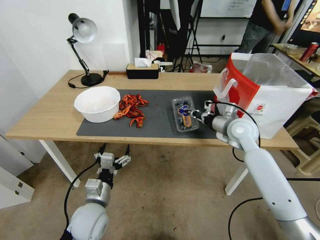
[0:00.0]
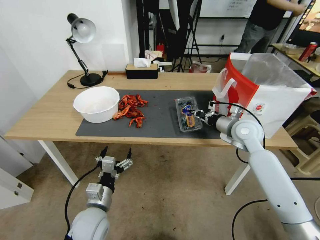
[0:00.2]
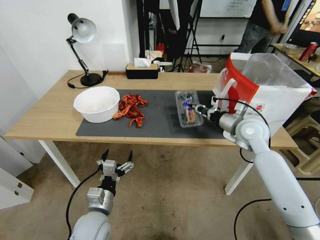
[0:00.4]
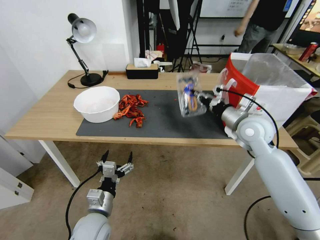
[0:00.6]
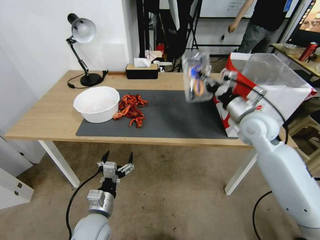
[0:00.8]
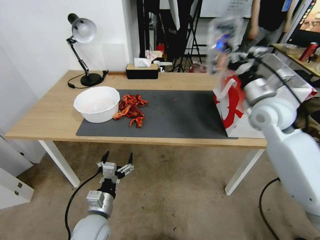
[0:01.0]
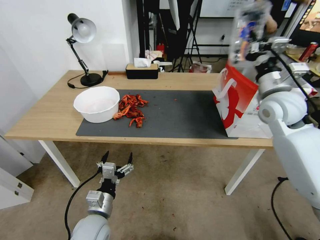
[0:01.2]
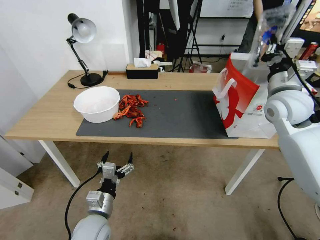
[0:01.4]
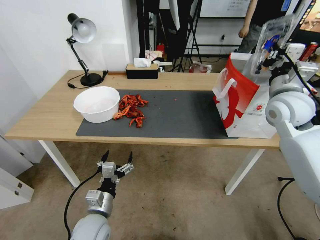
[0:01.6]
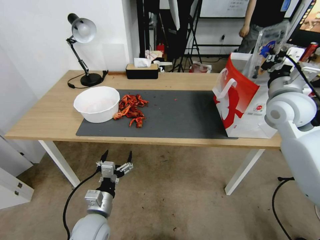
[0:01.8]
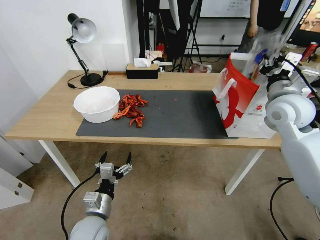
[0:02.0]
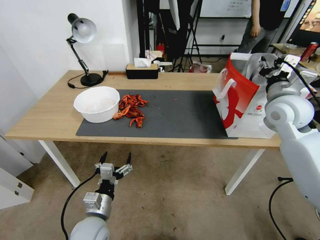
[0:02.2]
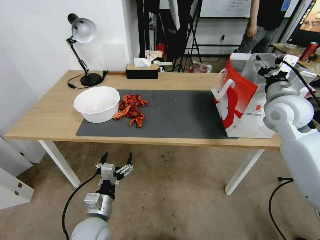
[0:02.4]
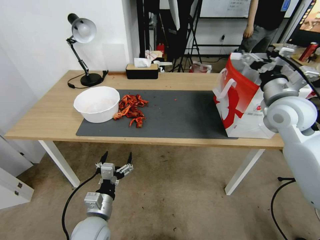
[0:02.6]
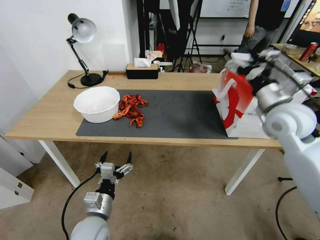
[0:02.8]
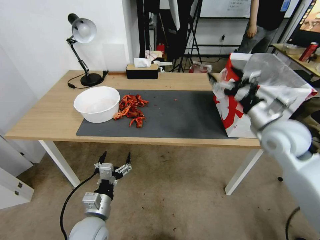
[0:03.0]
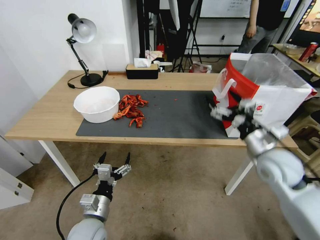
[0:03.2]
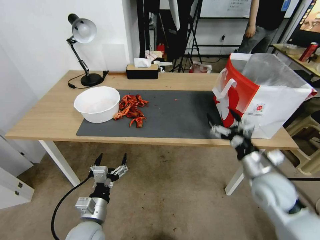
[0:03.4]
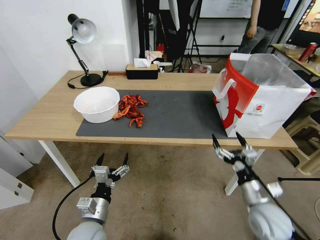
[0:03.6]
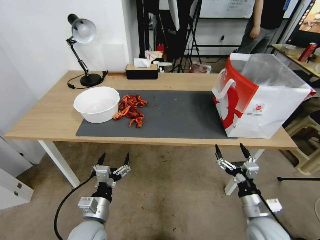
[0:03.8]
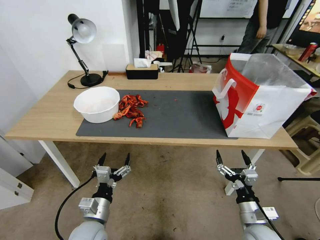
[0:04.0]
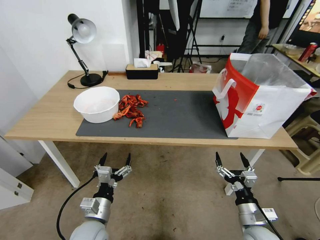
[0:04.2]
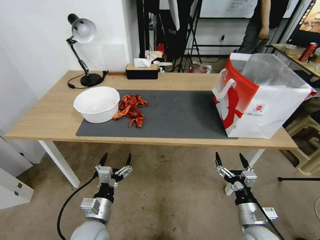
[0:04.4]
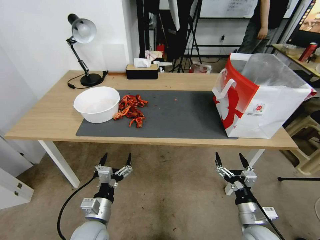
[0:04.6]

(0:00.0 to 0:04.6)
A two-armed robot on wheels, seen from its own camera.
Task of the whole recording: Close the takeout container lid, then place the container into the takeout bag.
0:00.0 - 0:01.6: The right gripper moves upward and to the right, approximately 15 cm.
0:01.6 - 0:03.0: The right gripper heads backward, covering some 5 cm, and opens up.
0:03.0 - 0:04.6: The right gripper goes about 35 cm downward and backward.

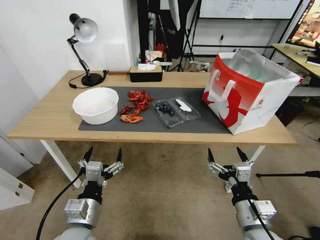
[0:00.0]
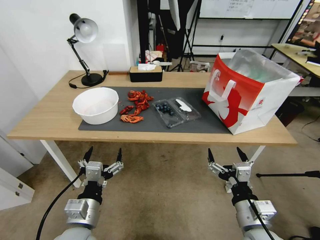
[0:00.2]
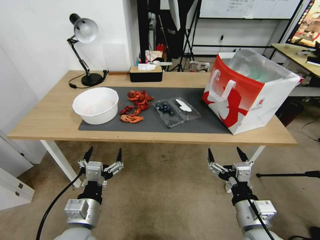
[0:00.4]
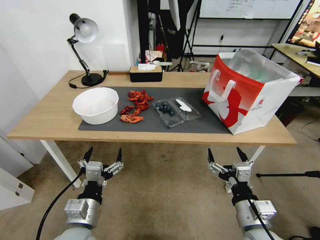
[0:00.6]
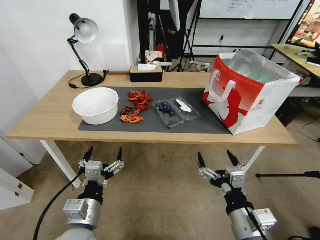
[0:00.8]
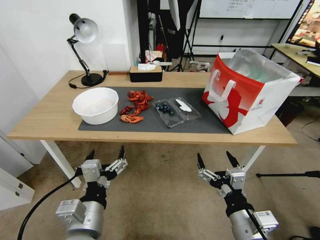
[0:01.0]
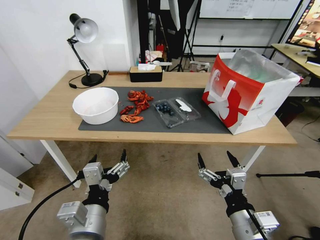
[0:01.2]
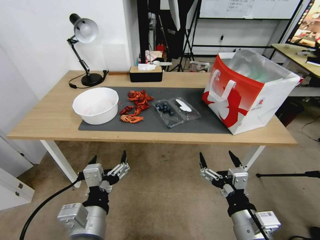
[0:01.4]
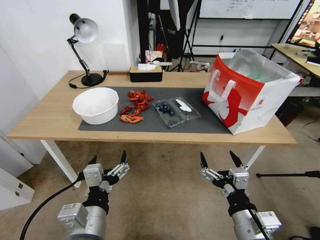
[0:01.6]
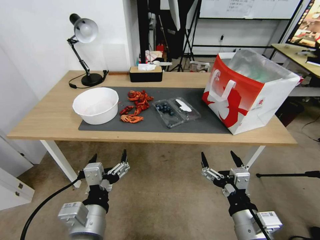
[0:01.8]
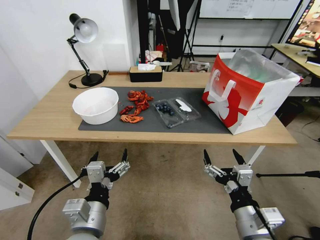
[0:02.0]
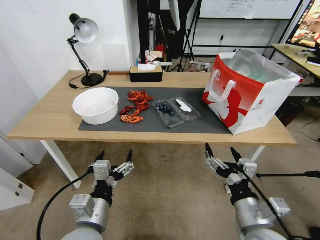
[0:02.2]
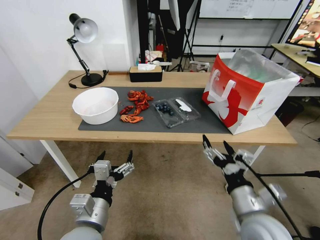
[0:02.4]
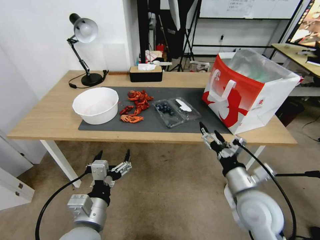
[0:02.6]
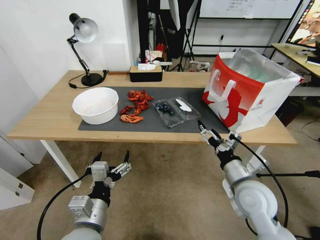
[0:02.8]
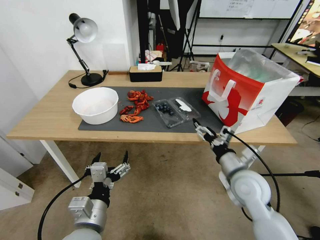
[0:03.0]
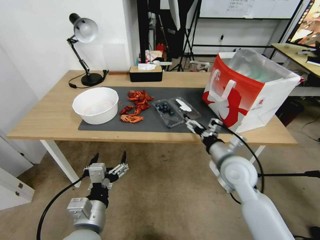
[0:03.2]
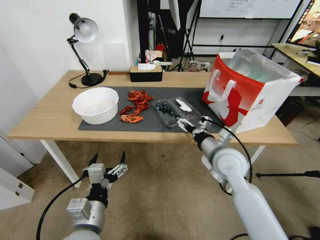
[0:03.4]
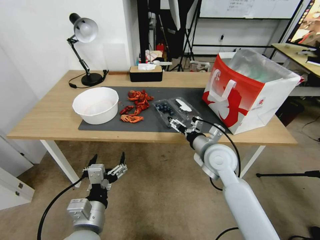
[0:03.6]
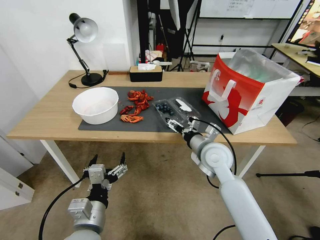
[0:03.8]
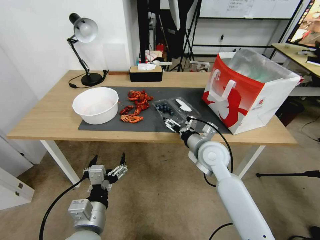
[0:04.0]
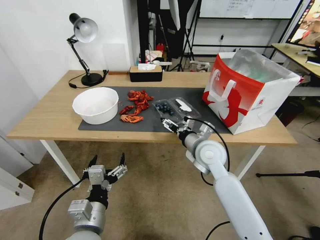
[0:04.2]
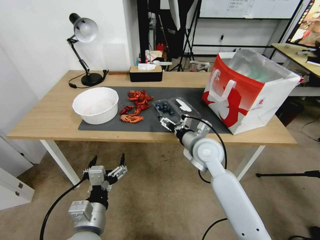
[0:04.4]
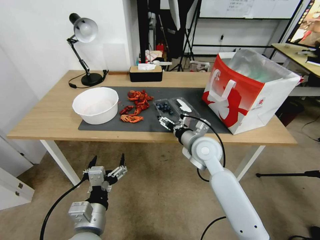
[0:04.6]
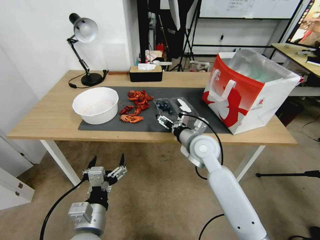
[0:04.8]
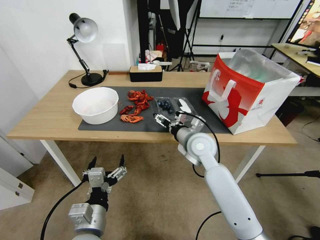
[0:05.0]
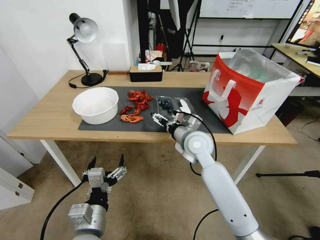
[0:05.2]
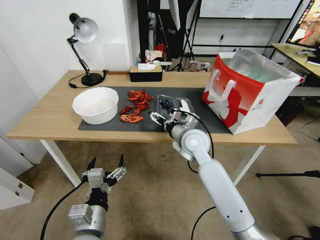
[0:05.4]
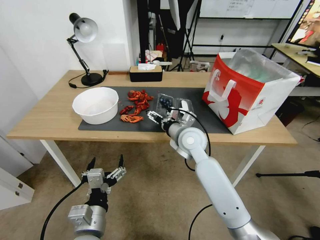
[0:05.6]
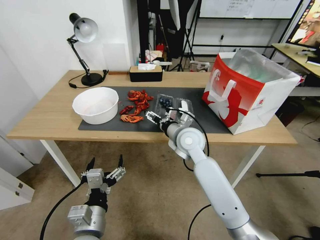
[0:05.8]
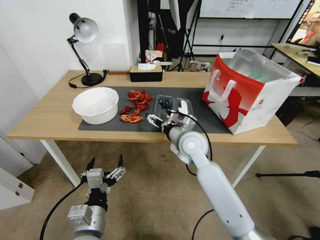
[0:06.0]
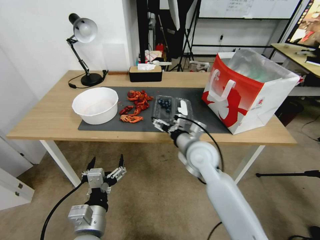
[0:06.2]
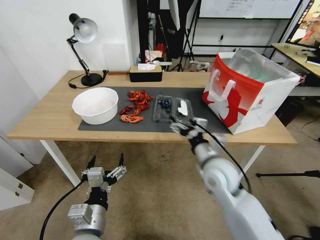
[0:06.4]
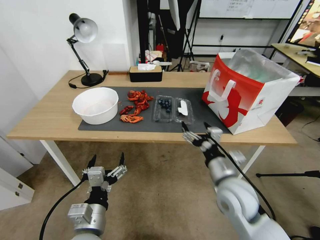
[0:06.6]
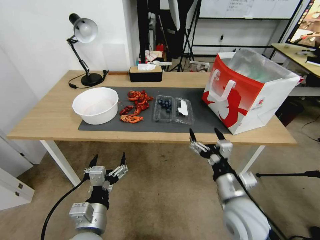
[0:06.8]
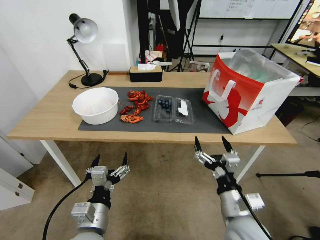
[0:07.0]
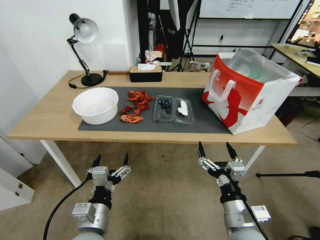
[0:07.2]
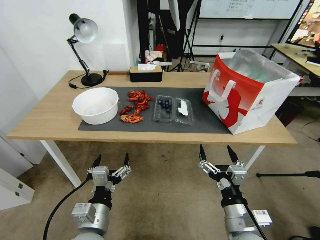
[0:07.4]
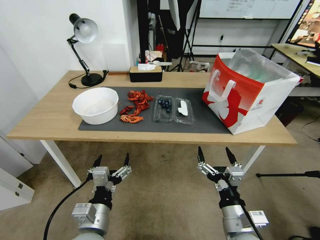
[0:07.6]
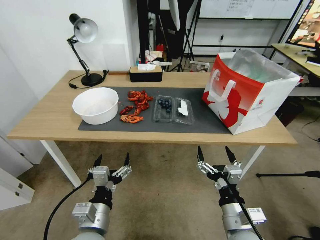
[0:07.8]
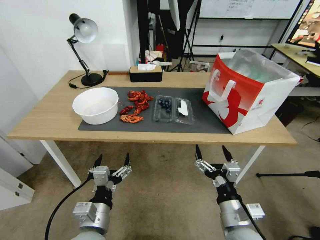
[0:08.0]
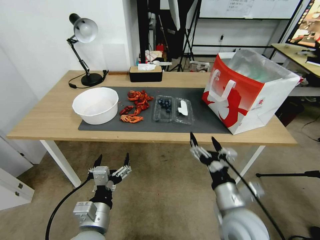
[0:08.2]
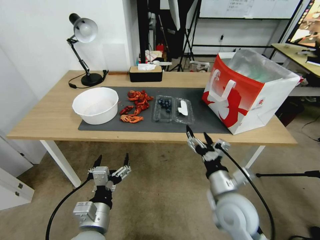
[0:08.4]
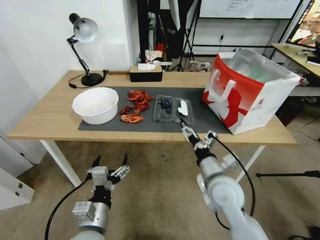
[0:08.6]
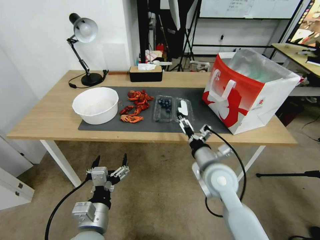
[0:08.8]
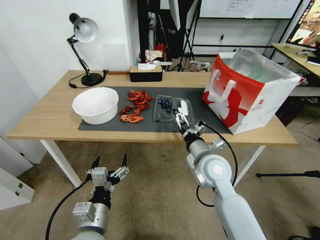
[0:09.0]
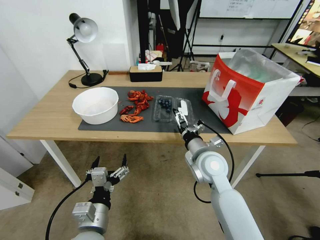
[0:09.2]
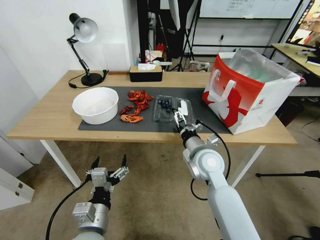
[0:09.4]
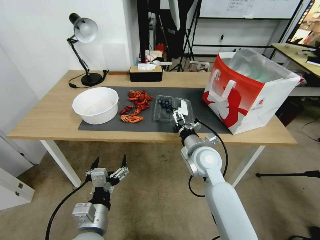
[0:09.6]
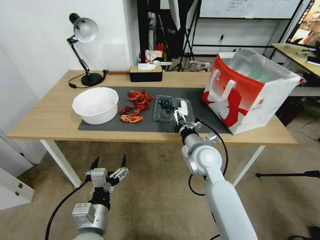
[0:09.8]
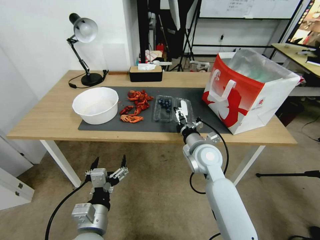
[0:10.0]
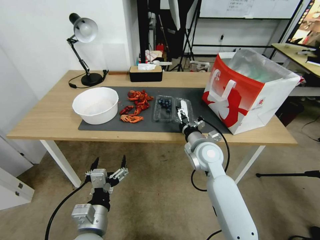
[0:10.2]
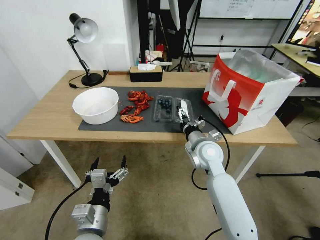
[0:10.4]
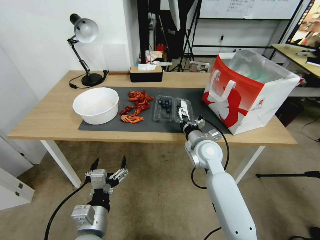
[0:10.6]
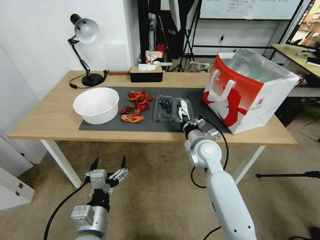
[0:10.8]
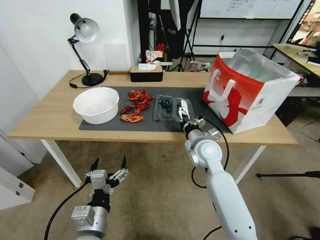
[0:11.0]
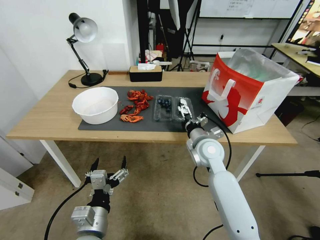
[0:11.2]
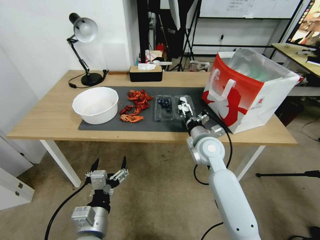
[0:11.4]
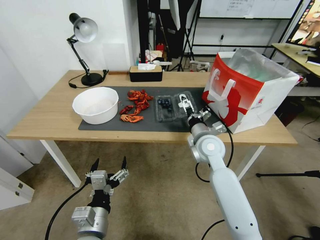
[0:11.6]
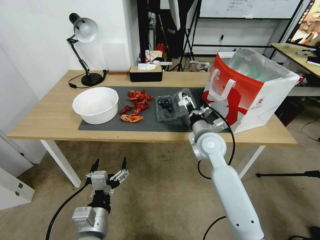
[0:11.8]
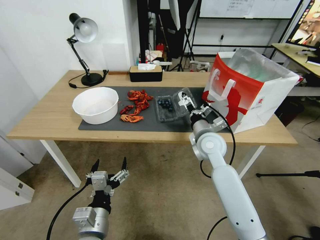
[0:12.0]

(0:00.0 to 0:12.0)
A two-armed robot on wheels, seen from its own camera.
Task of the whole recording: Close the takeout container lid, then place the container into the takeout bag.
0:01.6 - 0:03.0: The left gripper ends up approximately 5 cm from where it was; the right gripper moves forward, roughly 15 cm.
0:03.0 - 0:04.4: The right gripper is displaced to the left and forward by about 15 cm.
0:06.0 - 0:07.6: The right gripper travels backward by about 25 cm.
0:07.6 - 0:09.0: The right gripper moves forward, roughly 20 cm.
0:09.0 - 0:10.4: The right gripper is displaced forward by approximately 5 cm.
0:10.4 - 0:12.0: The grippers move only a little.

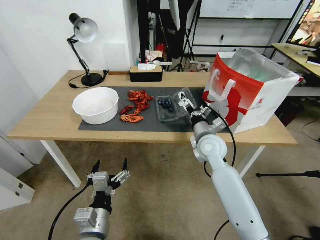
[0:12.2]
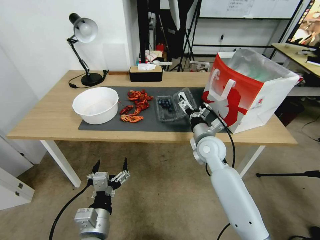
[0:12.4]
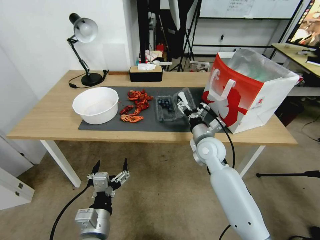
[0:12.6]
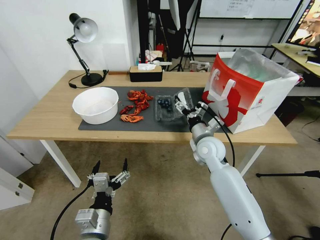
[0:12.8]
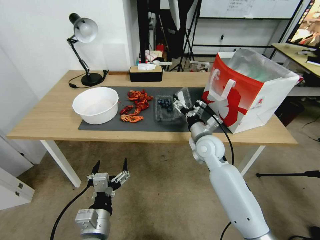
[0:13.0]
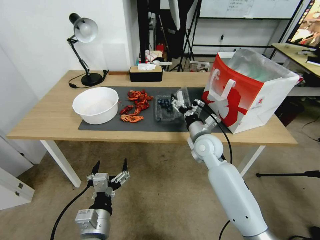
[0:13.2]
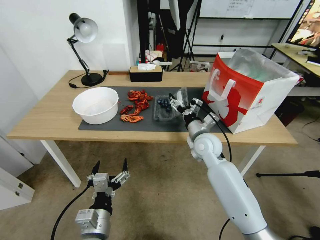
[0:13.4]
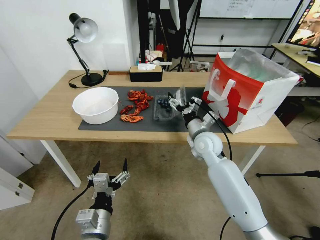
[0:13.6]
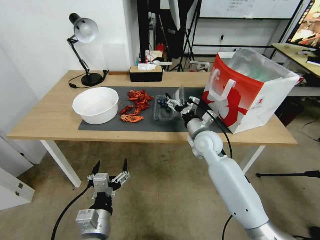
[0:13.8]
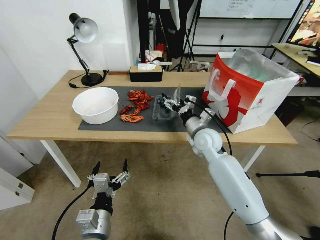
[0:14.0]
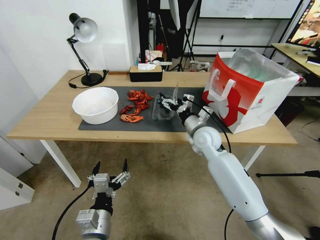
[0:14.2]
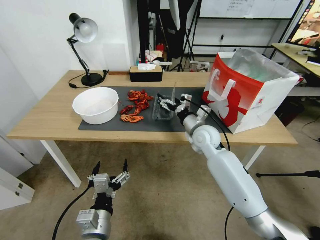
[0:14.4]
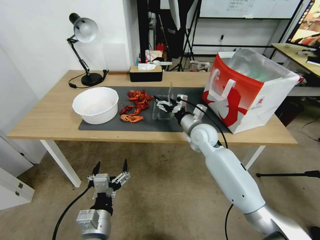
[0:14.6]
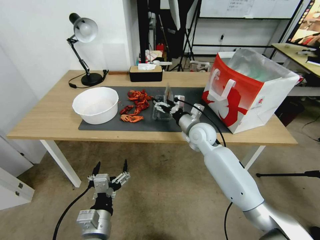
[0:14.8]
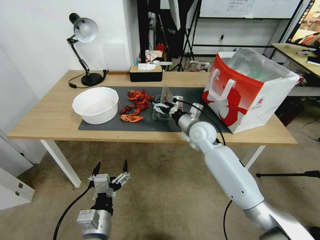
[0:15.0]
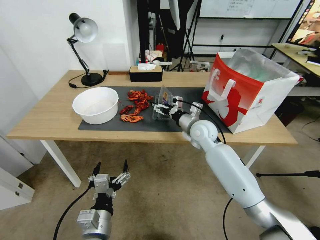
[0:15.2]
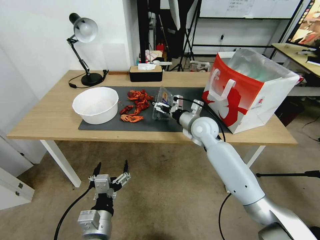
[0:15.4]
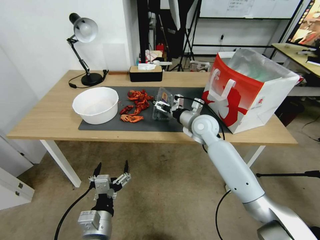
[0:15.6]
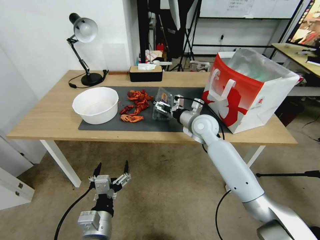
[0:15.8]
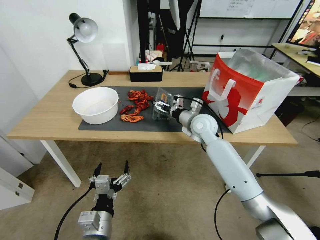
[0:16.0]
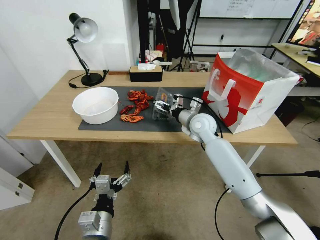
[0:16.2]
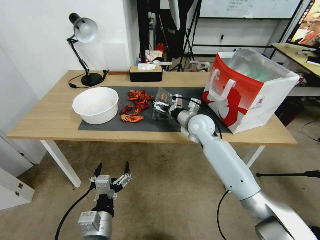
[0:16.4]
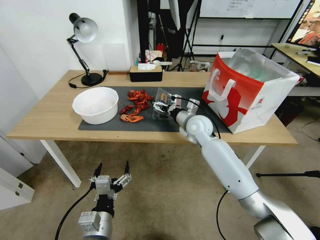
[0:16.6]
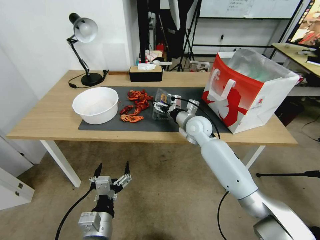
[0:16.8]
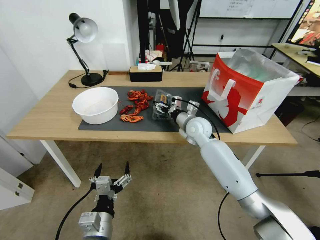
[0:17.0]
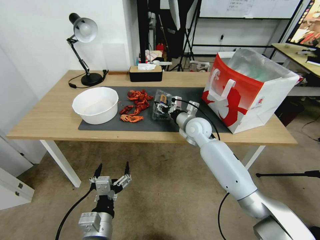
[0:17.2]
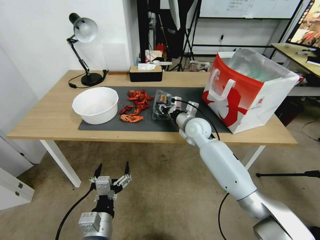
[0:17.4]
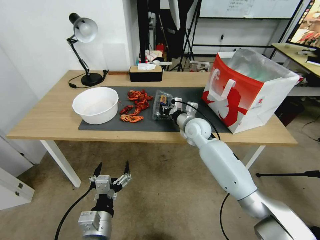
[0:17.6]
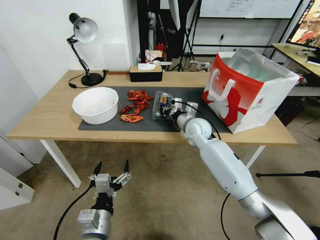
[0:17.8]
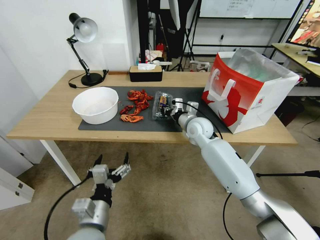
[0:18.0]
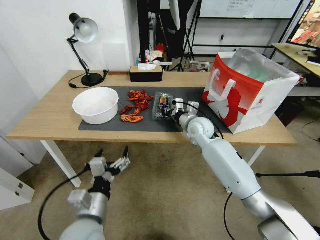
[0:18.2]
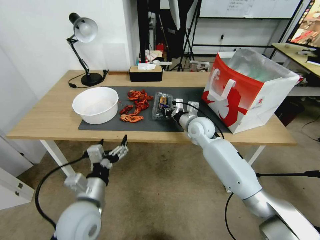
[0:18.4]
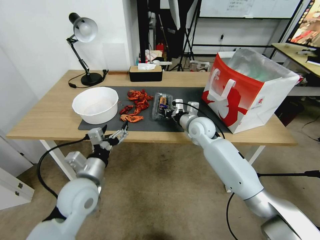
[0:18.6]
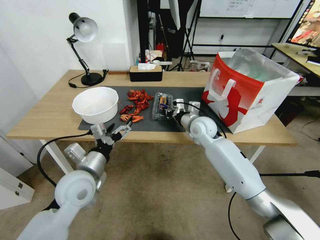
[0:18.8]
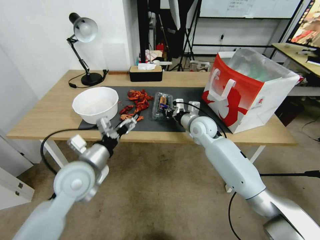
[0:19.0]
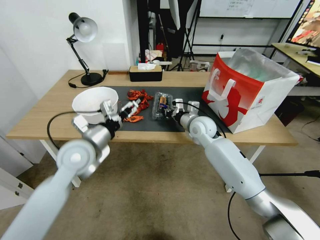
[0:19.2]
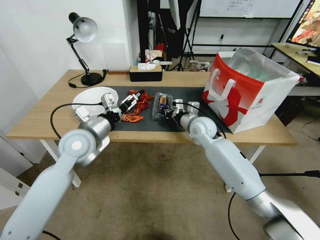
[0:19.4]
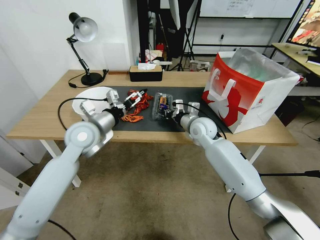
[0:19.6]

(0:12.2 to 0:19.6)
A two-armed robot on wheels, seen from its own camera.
Task of the whole recording: Close the takeout container lid, then place the container into the takeout bag.
0:15.2 - 0:16.6: The grippers stay close to where they were, moving slightly.
0:16.6 - 0:18.2: The right gripper closes its fingers, while the left gripper heads upward, covering approximately 5 cm.
0:18.2 - 0:19.6: The left gripper travels forward and upward by some 25 cm.
